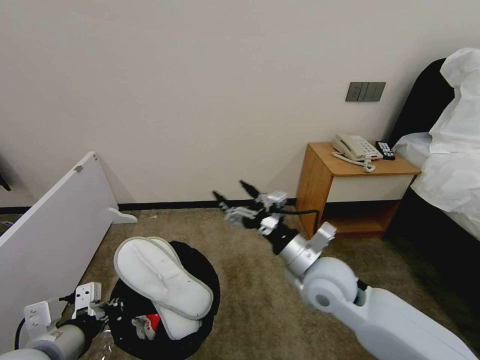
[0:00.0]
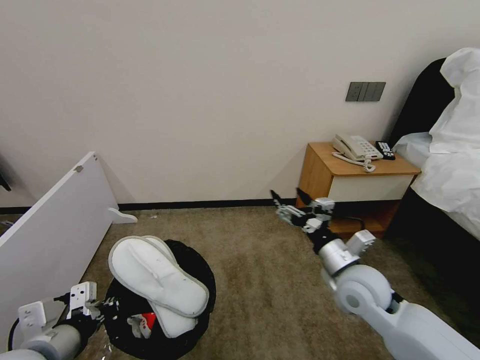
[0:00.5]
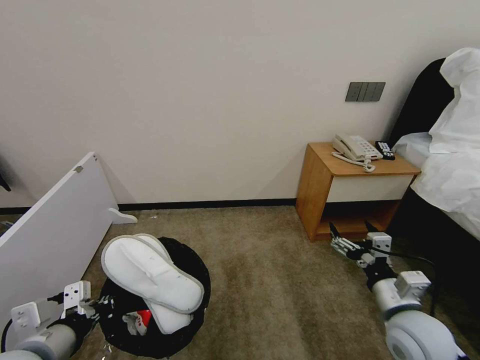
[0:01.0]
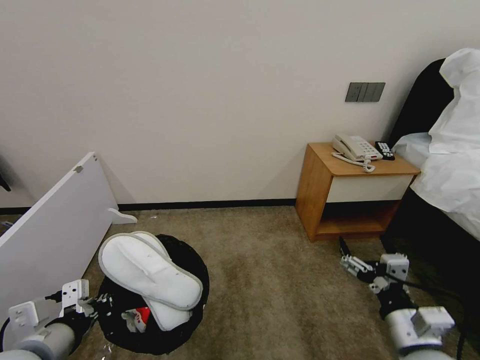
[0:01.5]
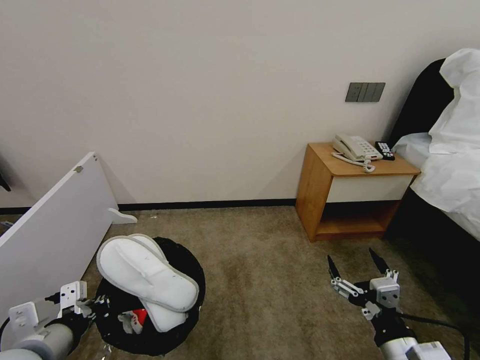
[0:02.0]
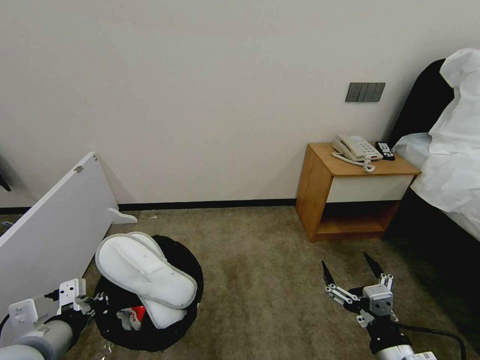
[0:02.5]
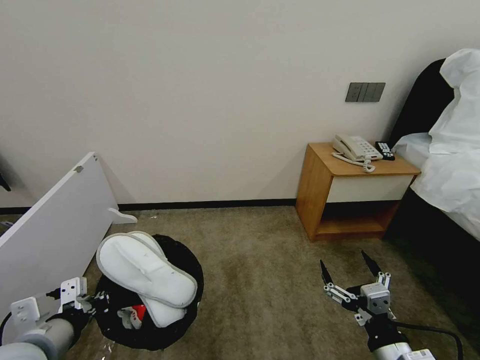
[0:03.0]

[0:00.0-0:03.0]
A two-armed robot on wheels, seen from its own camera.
Task of the whole recording: Pick up the trash bin, then pick up the garbage from the floor and place it into the trash bin.
0:00.0 to 0:01.5: The right gripper goes some 20 cm to the right and backward.
0:01.5 to 0:03.0: The right gripper changes place by roughly 5 cm.
